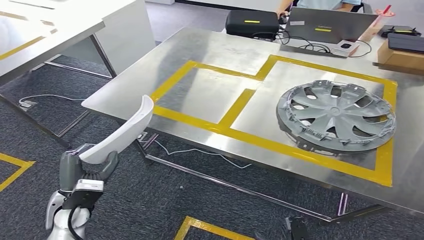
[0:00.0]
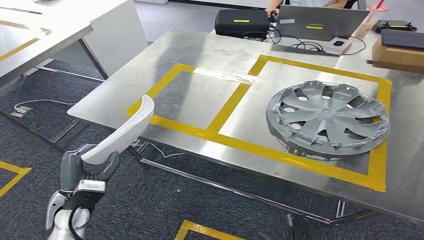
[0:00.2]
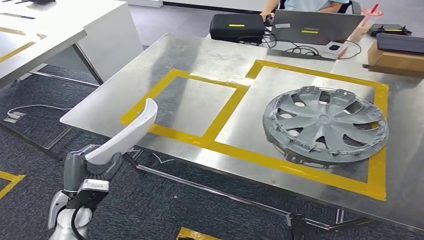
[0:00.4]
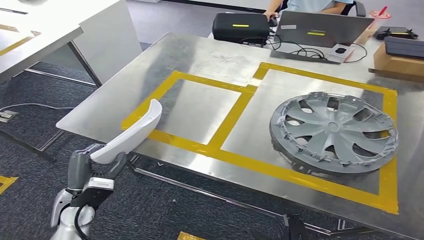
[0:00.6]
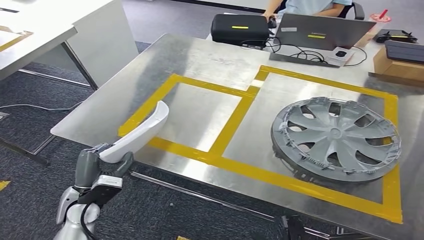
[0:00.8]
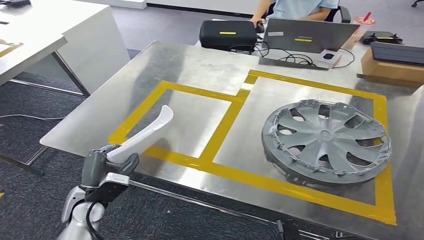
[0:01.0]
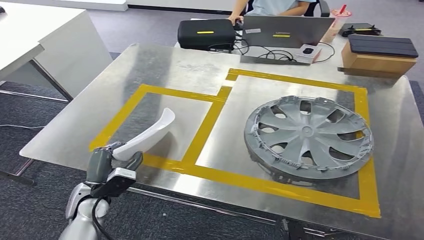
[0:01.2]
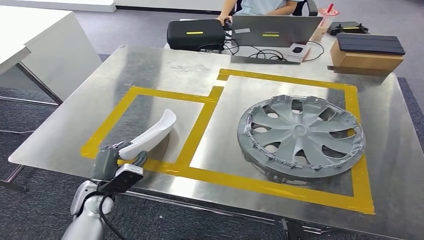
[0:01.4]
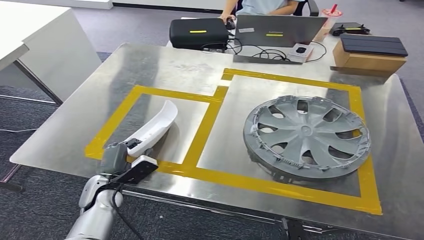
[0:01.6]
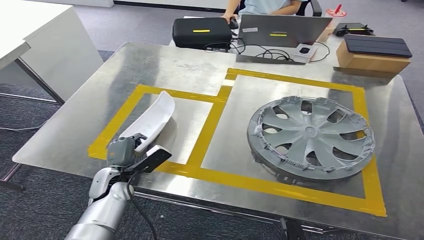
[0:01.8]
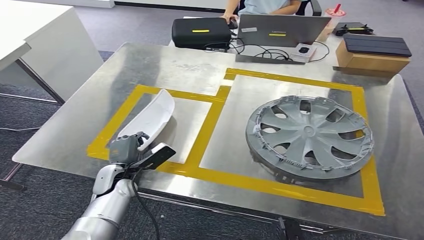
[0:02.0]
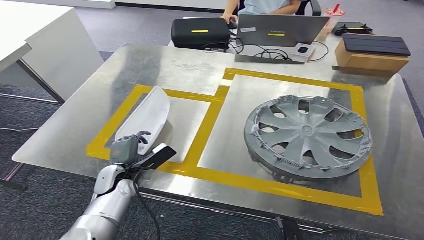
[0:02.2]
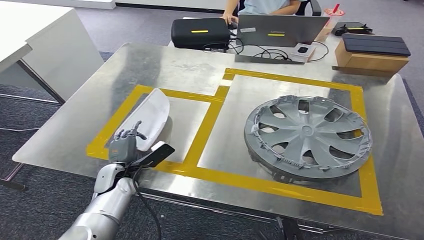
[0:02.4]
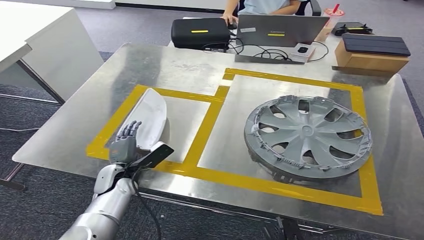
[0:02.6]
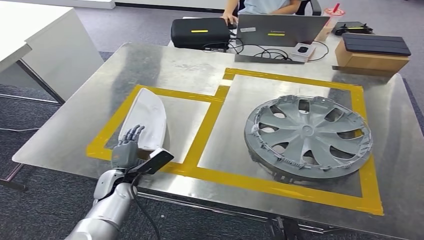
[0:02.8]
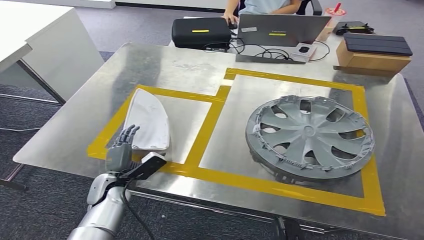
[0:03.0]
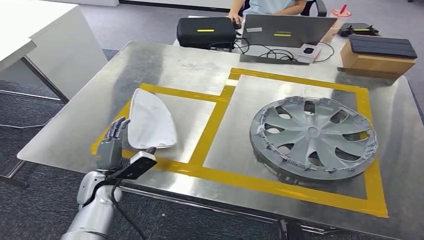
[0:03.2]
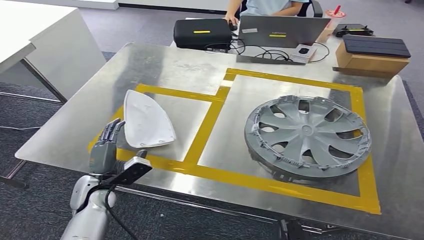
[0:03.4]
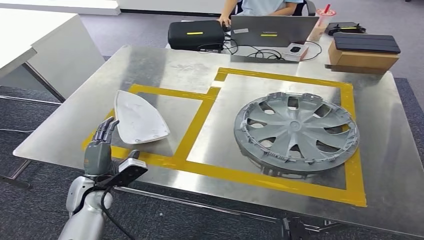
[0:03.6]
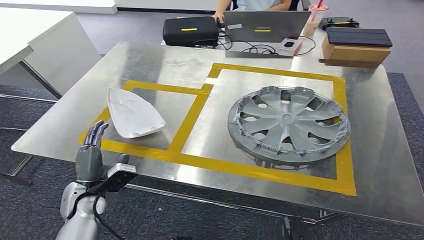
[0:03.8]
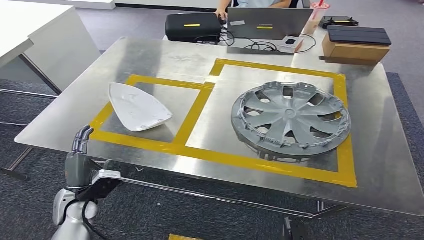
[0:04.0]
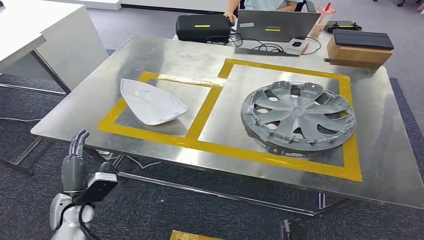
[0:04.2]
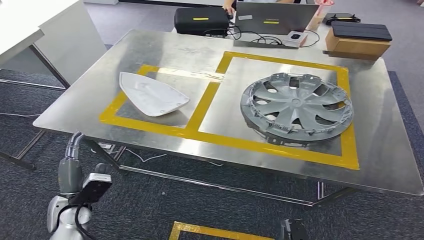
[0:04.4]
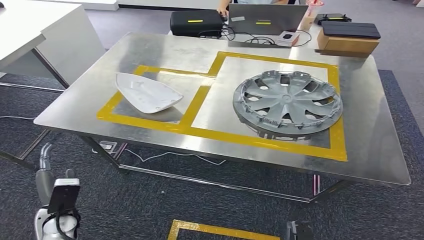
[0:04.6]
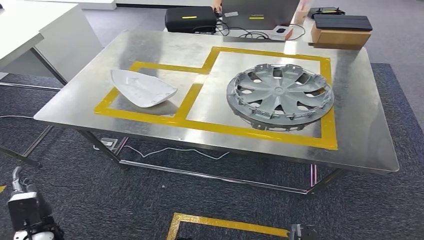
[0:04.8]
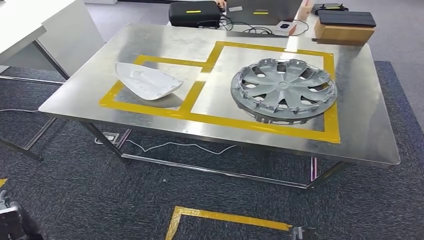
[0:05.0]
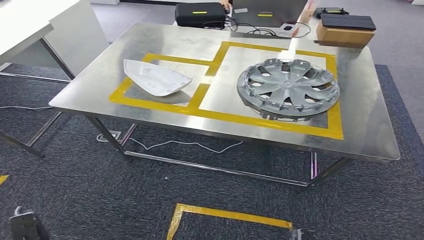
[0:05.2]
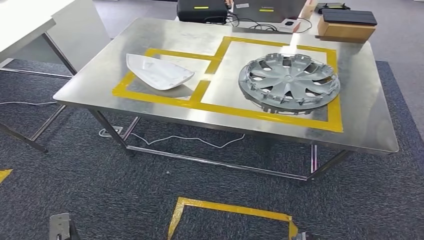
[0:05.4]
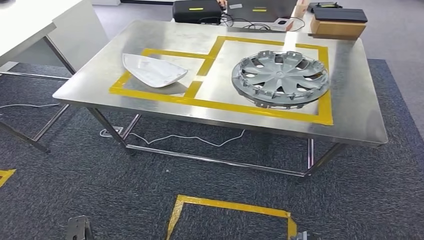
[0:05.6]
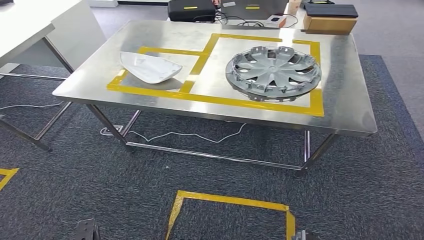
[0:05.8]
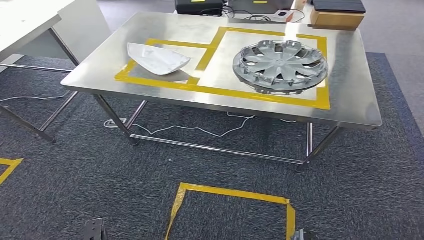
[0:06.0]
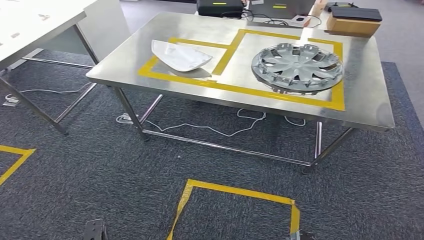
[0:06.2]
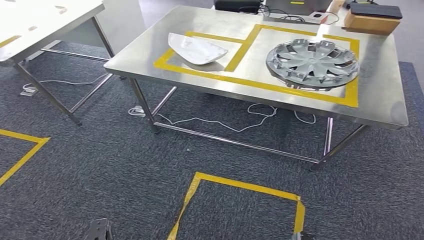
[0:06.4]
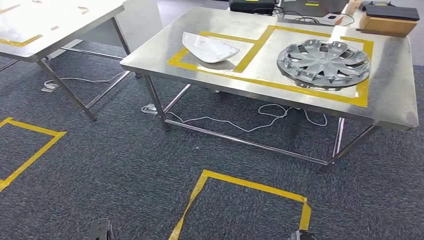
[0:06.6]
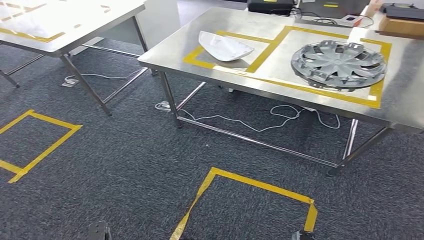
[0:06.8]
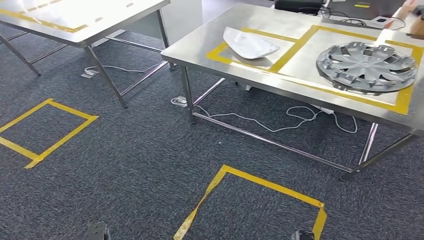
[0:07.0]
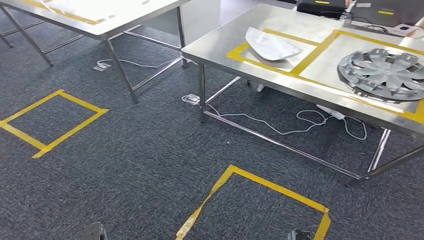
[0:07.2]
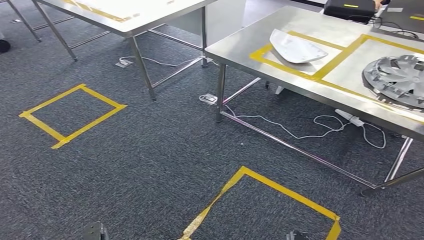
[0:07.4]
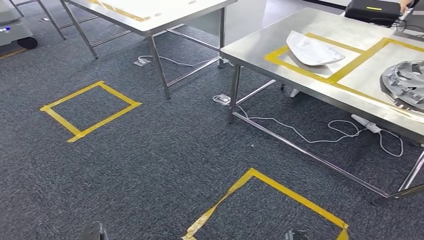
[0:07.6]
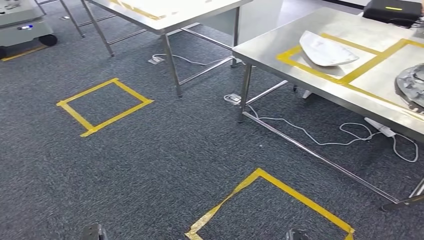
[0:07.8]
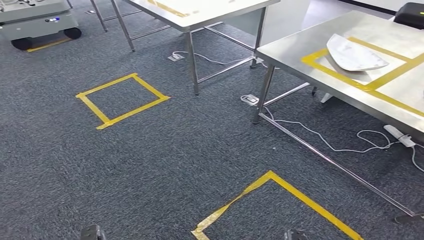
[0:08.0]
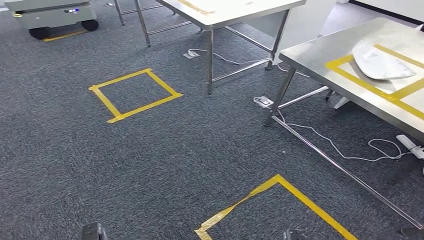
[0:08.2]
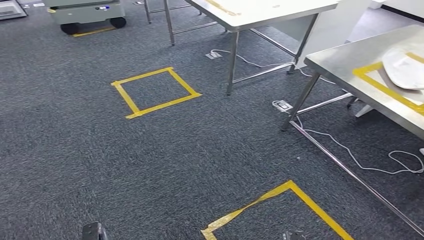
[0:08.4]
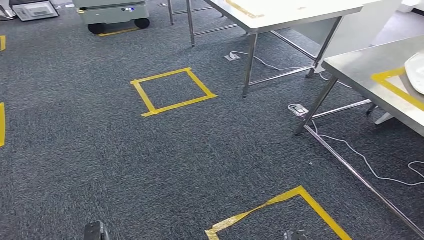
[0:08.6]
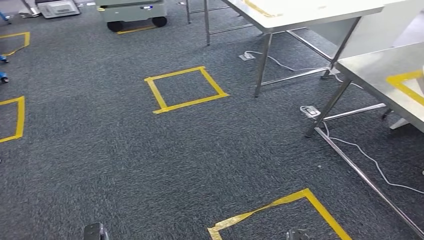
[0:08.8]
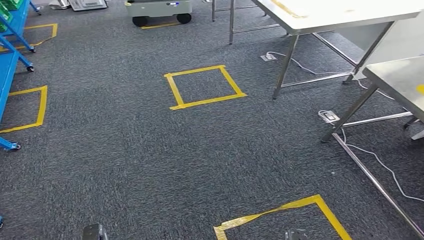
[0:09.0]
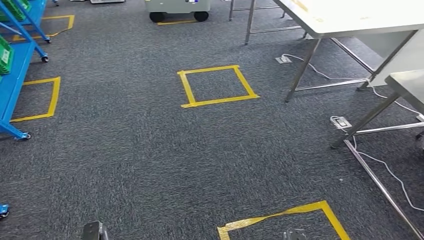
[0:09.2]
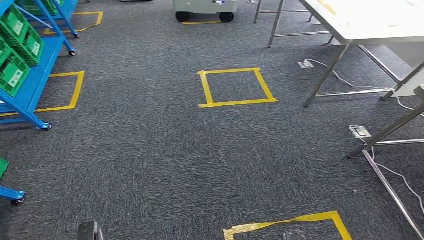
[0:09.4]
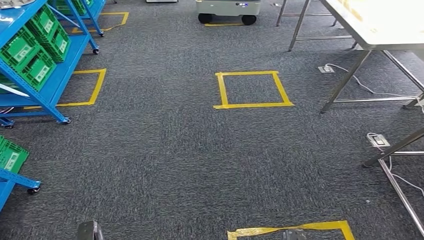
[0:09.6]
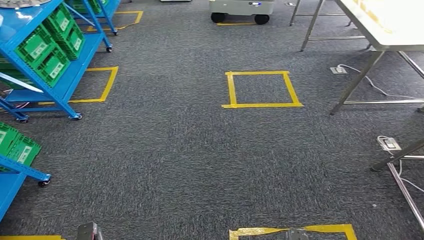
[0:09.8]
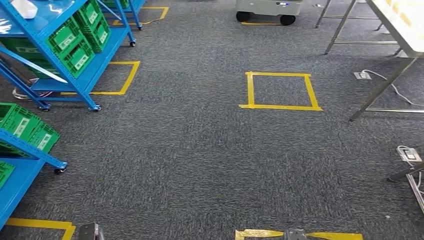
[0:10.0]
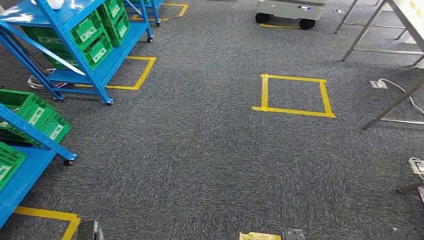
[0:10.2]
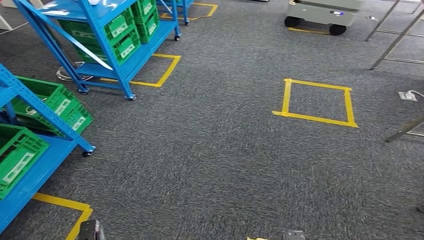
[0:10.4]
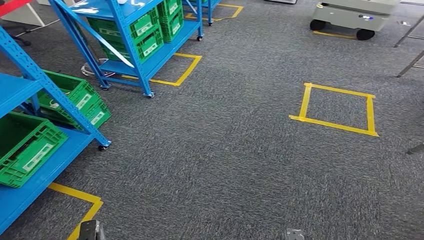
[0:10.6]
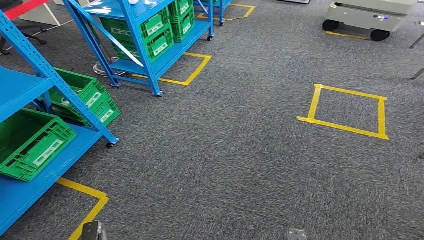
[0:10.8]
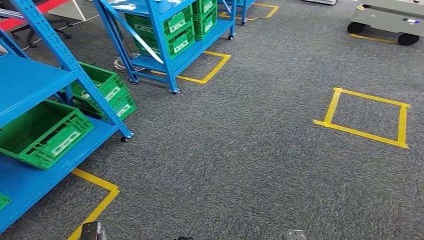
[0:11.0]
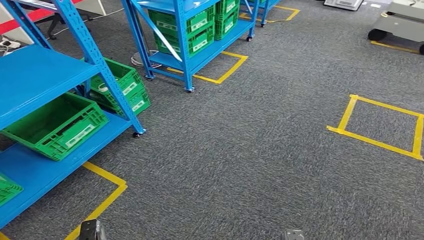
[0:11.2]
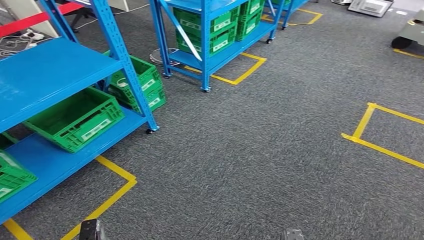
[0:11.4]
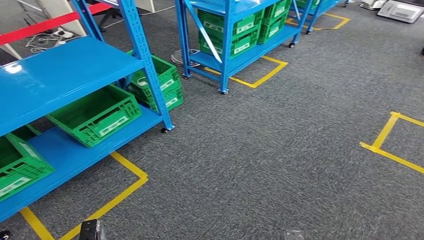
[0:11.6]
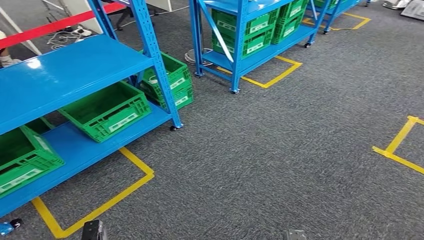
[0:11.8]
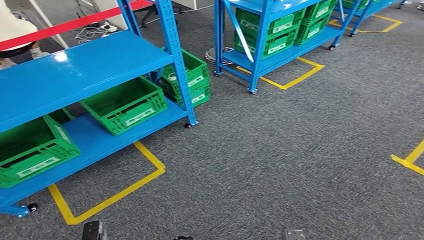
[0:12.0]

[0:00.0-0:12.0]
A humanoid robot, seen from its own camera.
Step, 0:00.0 to 0:04.2: Insert the small parts into the corresponding holes on the workbench.

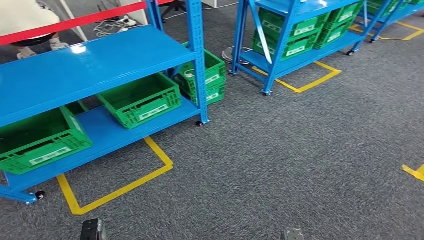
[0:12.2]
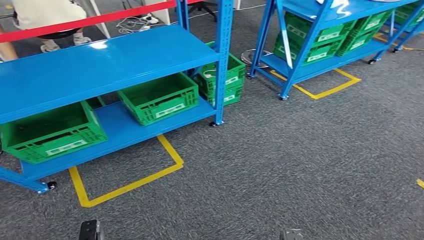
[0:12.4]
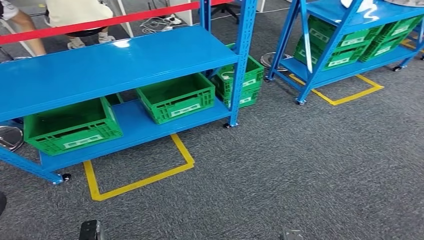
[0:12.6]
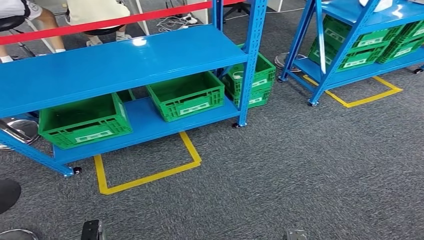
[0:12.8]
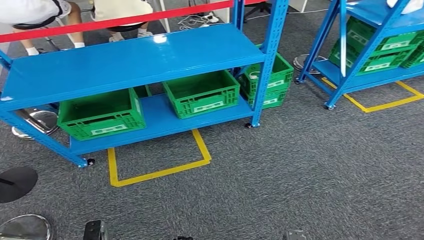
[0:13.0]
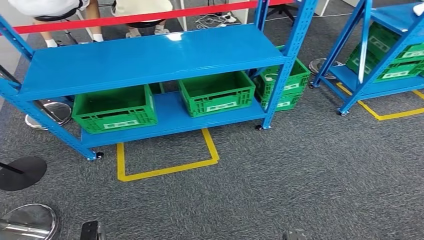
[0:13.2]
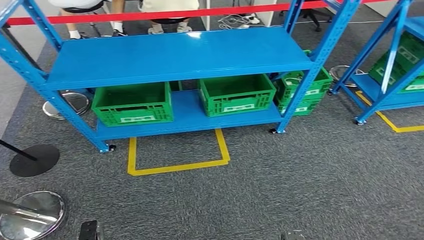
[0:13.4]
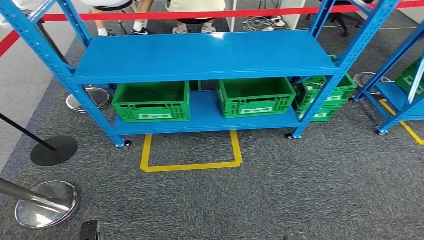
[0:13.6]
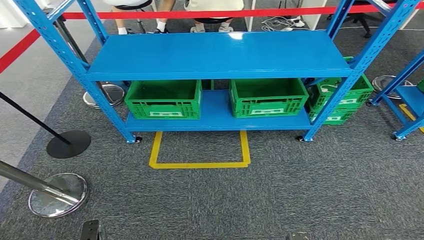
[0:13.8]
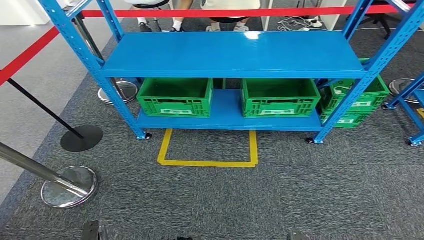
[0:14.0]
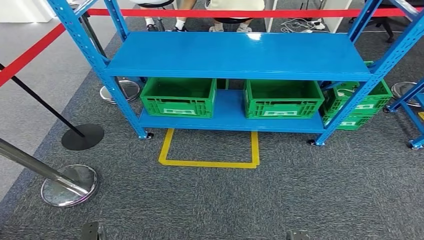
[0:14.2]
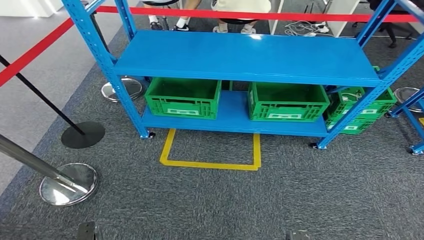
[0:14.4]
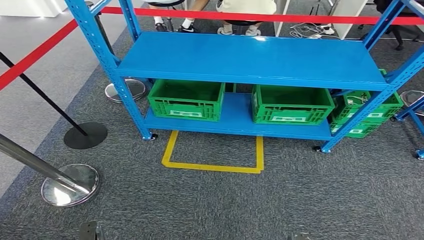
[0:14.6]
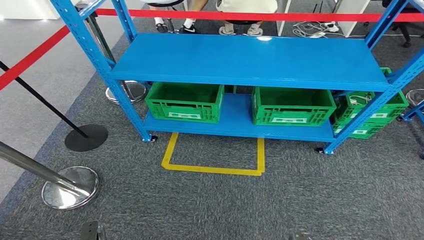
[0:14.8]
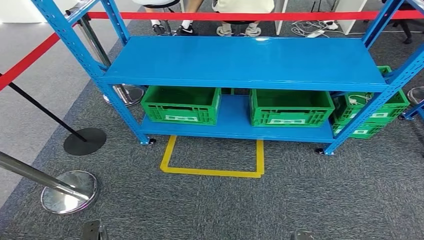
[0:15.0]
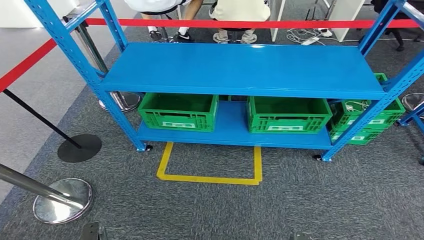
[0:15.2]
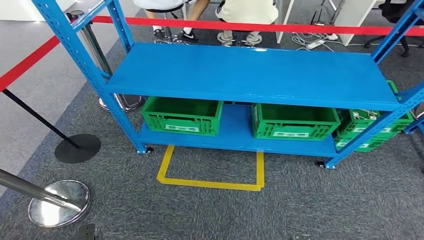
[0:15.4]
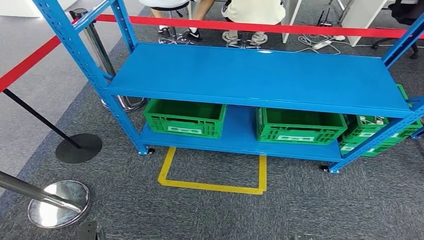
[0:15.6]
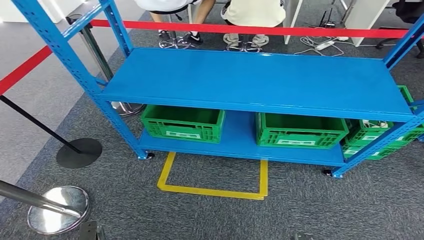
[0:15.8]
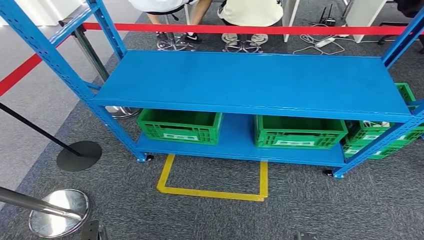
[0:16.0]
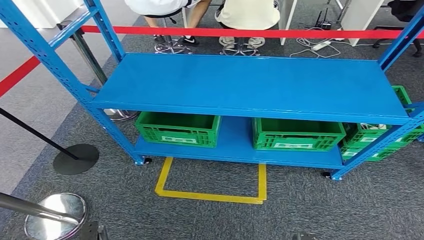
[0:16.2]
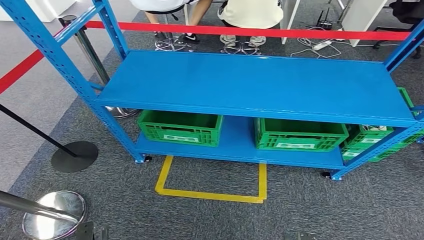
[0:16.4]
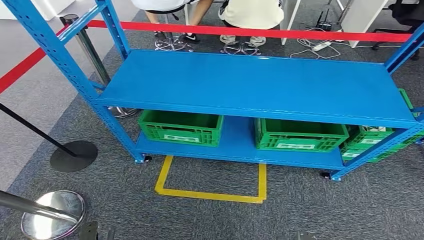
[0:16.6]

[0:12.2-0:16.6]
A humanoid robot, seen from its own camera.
Step, 0:12.2 to 0:16.4: Move to the initial position of the workbench.
